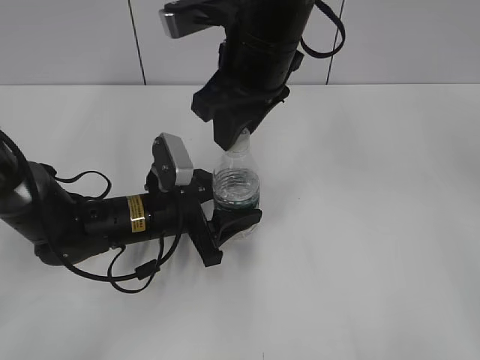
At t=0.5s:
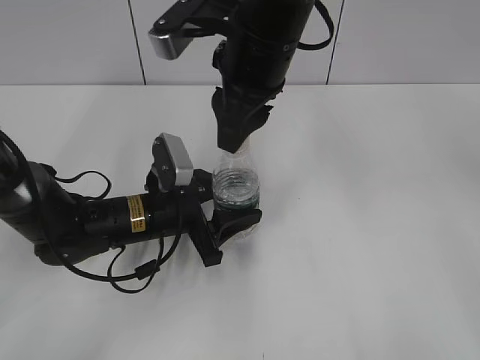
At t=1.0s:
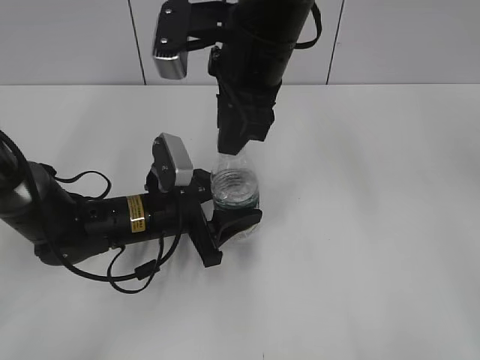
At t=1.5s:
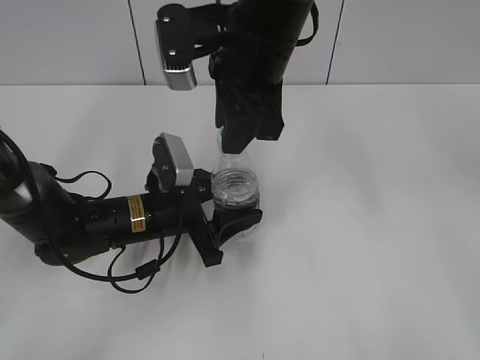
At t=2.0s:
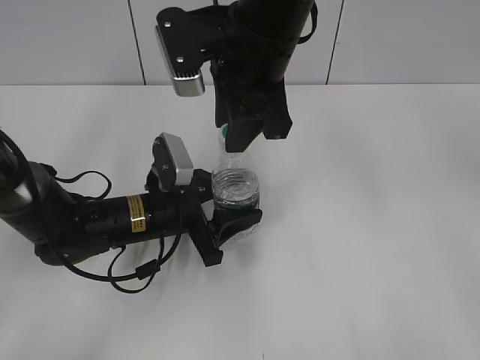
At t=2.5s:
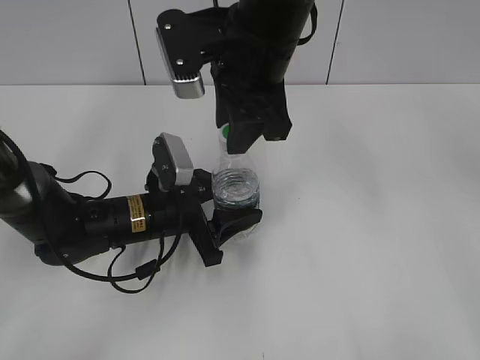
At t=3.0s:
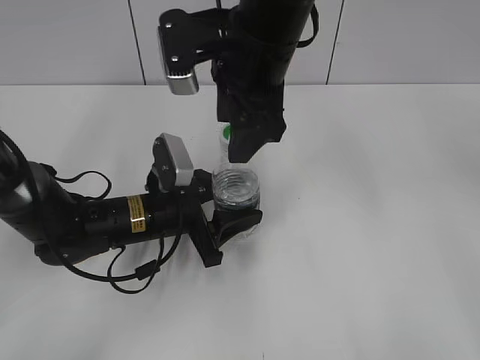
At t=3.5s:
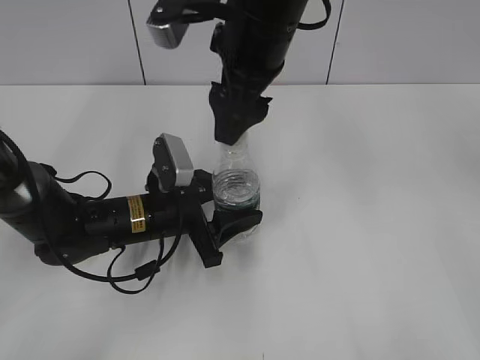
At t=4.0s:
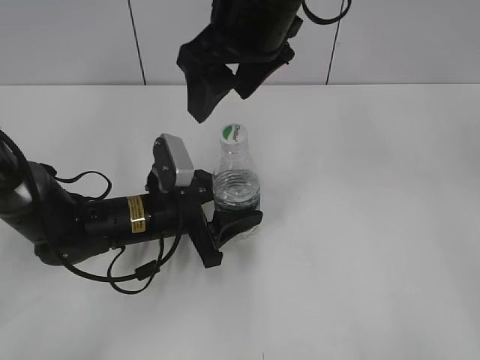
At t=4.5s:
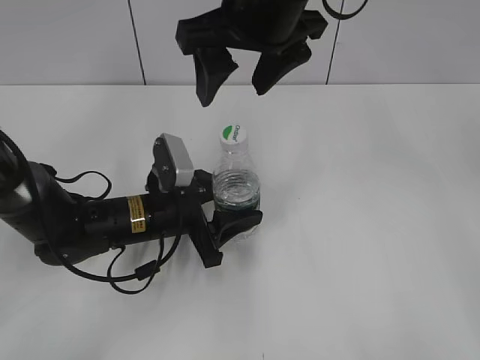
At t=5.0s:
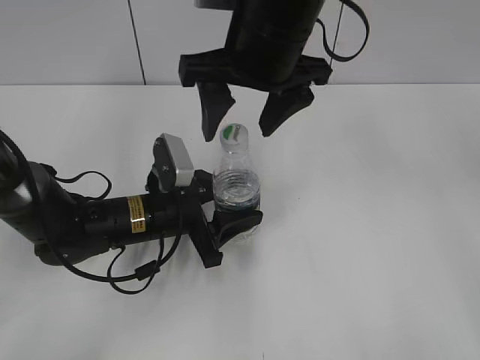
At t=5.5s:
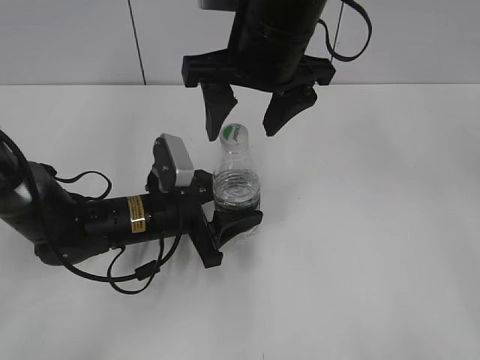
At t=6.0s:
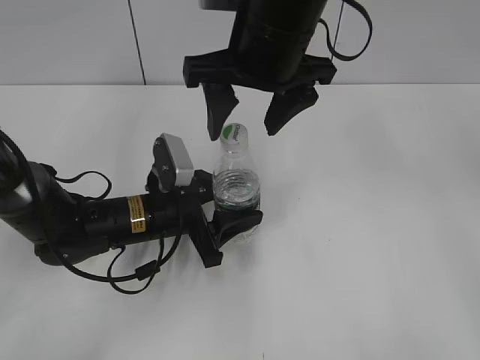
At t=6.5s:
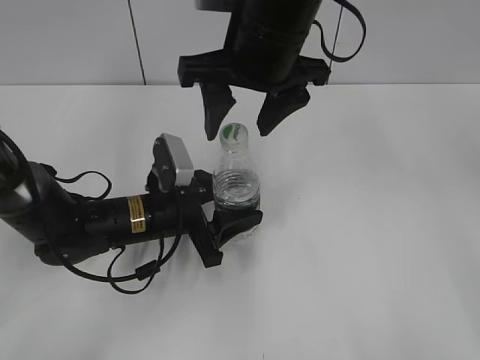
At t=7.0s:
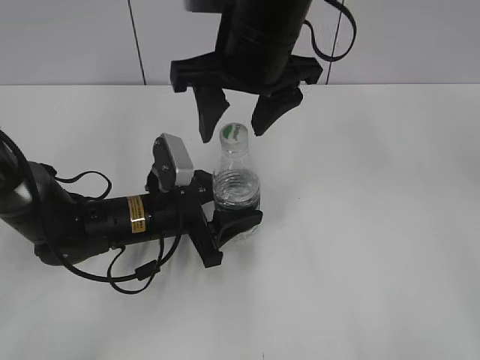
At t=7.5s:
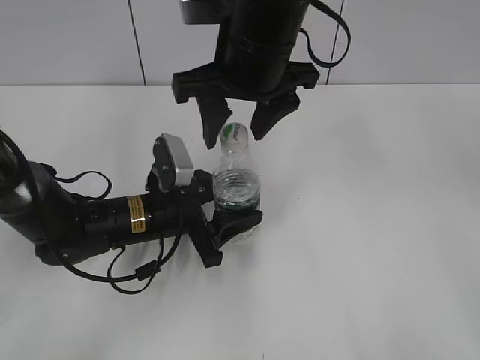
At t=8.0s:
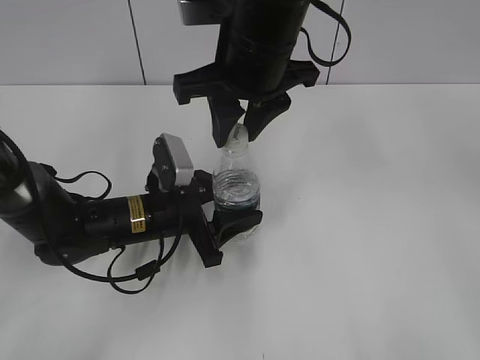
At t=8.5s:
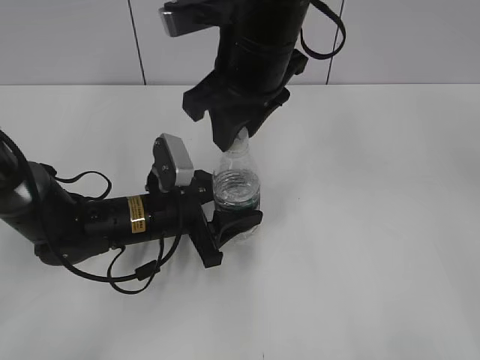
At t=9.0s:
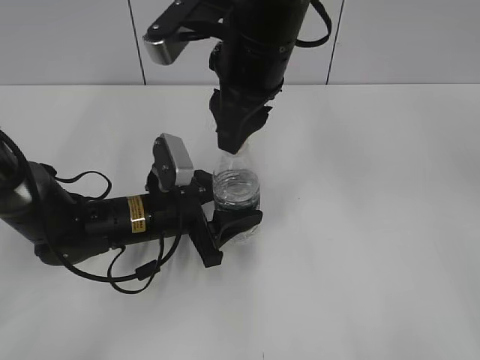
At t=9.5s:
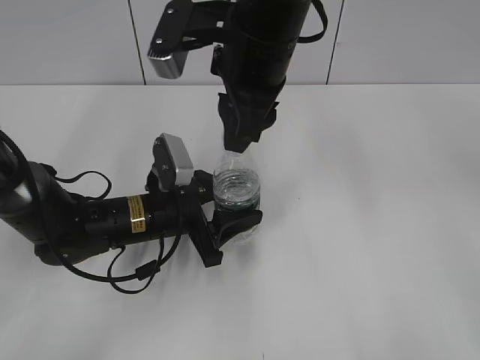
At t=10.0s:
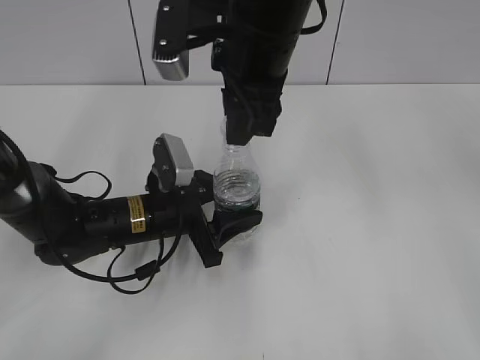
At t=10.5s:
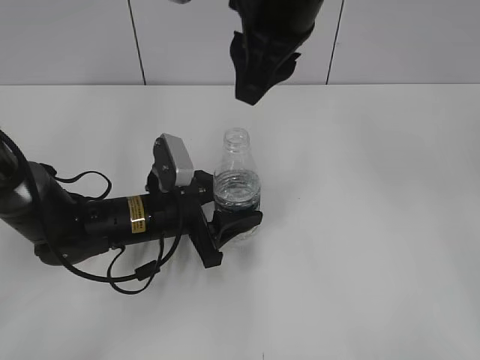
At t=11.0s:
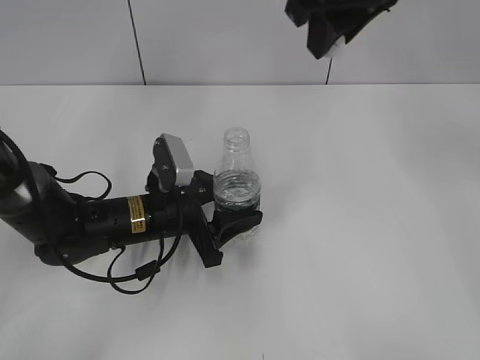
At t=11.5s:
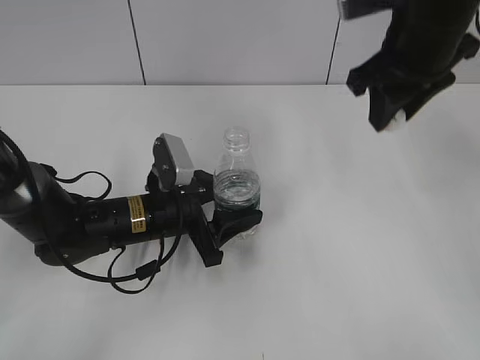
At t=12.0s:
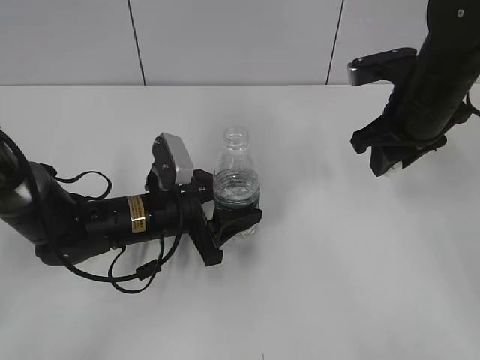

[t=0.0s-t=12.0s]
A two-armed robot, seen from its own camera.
Step, t=0.0s to t=10.0s: Unscrew the bottle cap with the right gripper while holding the bottle with the left gripper.
t=2.0s to t=4.0s: The right gripper opens its fingers.
t=6.0s to t=8.0s: The right gripper closes up.
t=10.0s to t=12.0s: The right gripper moves to the right and downward, roughly 20 cm.

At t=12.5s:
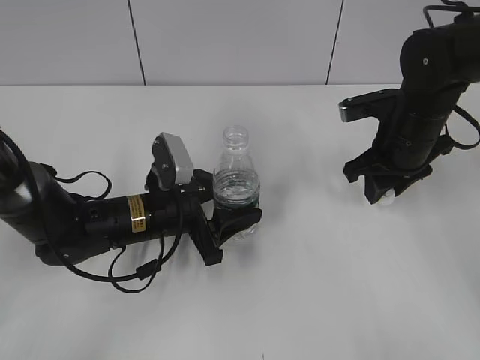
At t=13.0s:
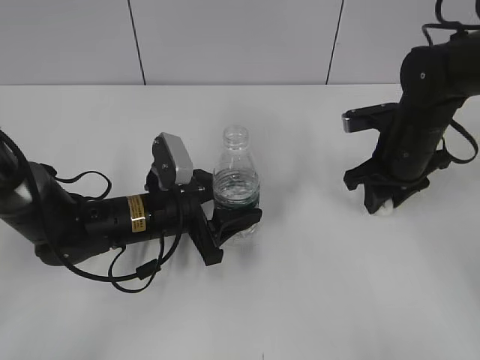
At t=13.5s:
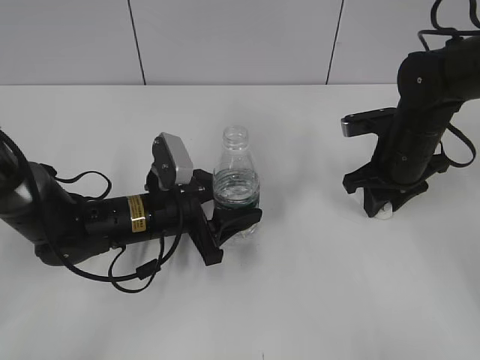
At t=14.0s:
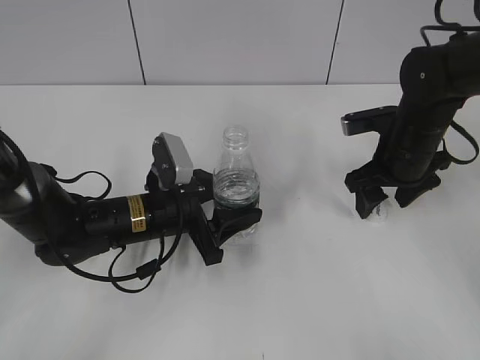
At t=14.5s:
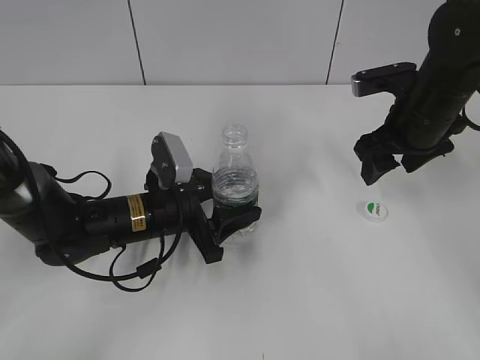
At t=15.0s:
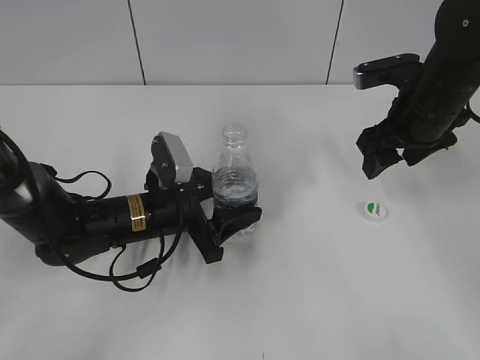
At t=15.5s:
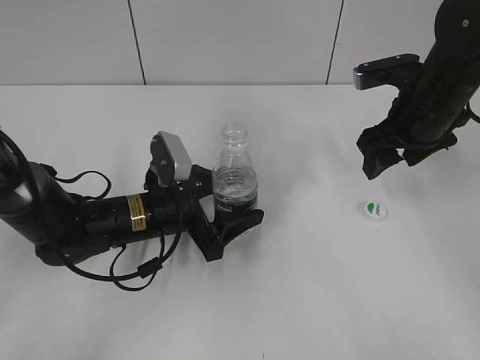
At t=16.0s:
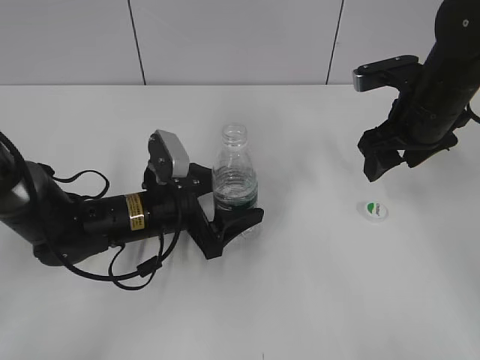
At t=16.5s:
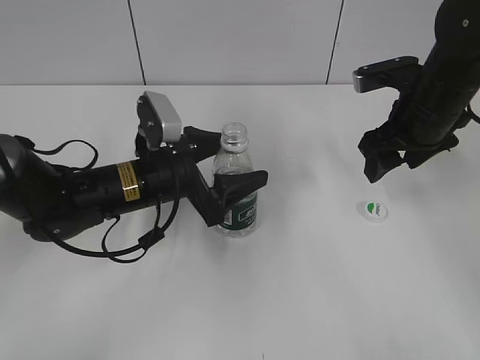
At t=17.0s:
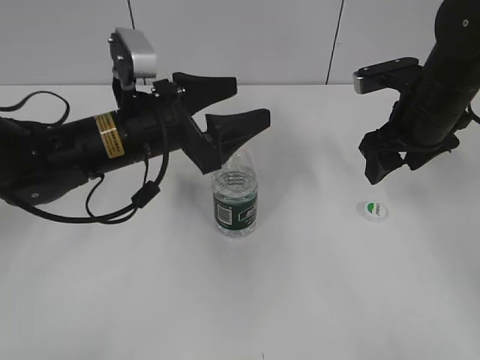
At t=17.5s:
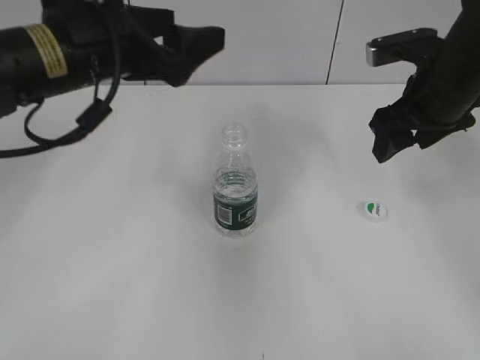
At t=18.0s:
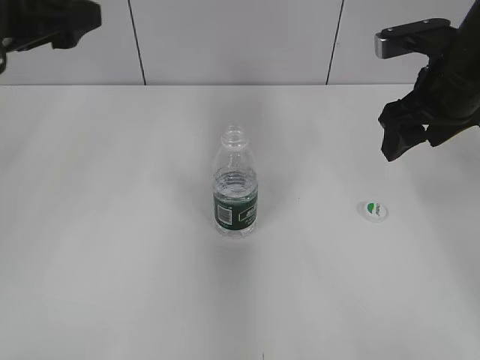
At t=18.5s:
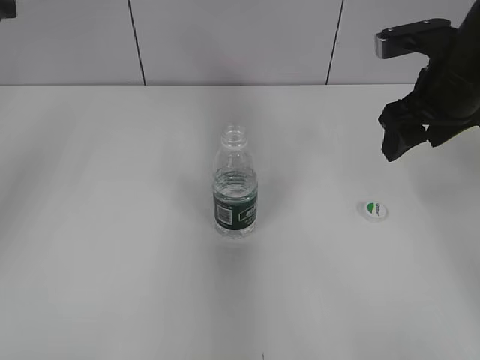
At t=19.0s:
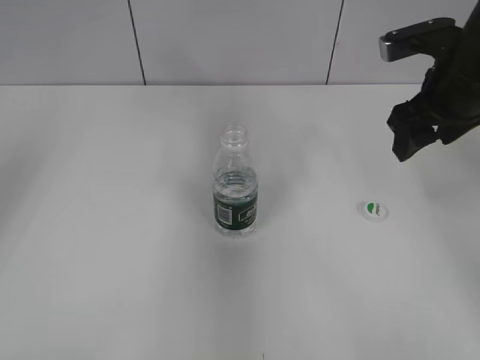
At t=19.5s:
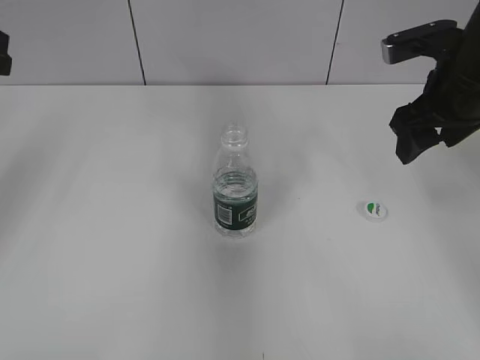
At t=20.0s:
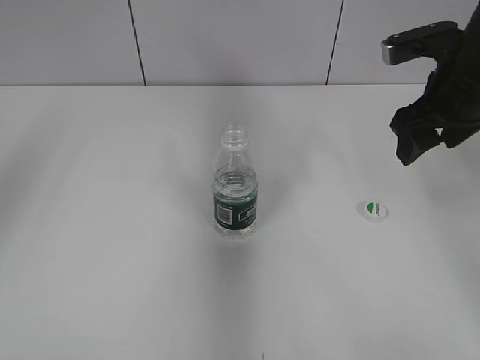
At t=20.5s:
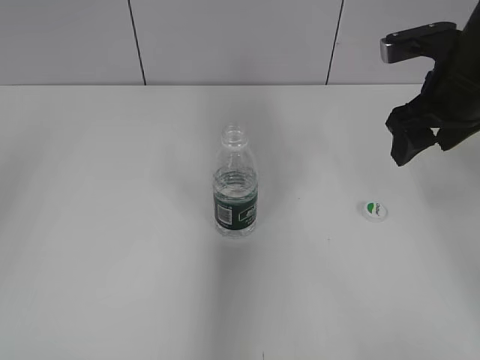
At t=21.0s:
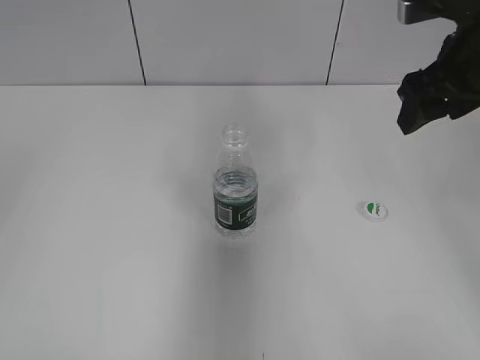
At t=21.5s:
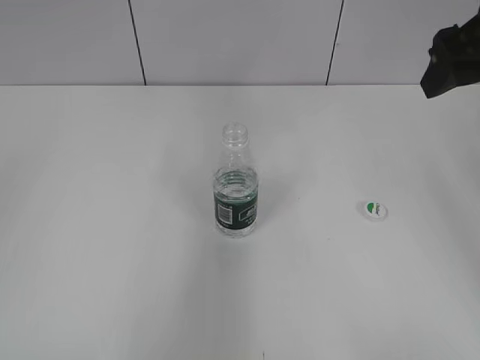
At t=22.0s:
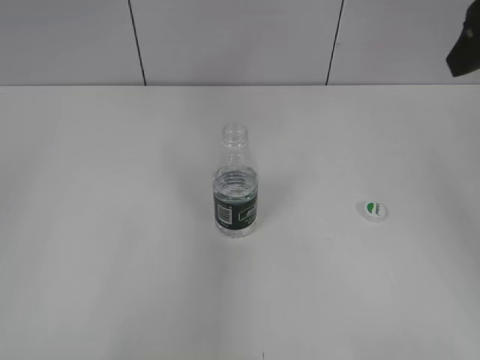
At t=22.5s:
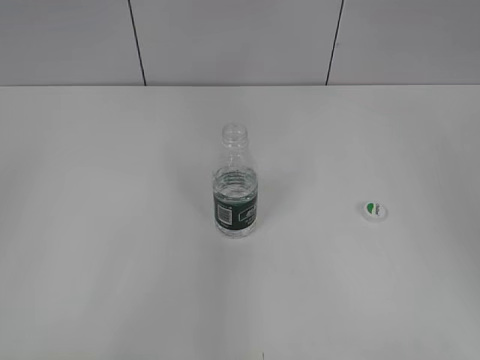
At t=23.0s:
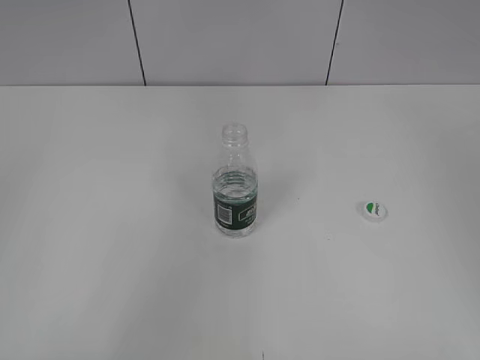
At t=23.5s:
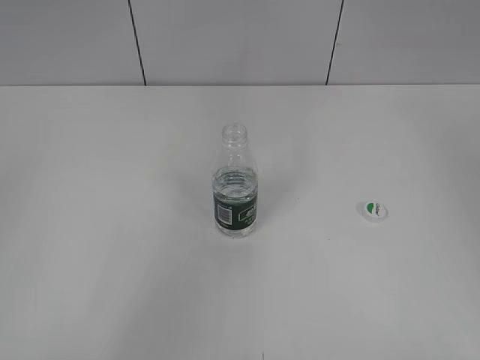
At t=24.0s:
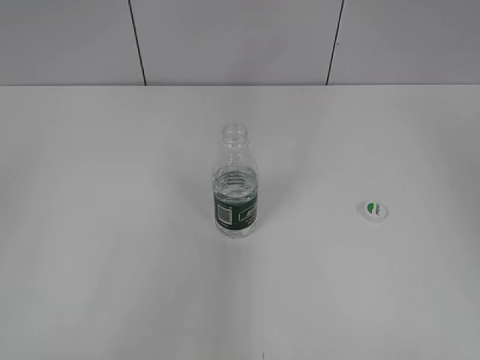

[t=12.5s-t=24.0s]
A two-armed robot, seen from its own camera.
Step, t=14.5s to t=16.5s: Place the bottle on the table with the left gripper.
t=12.5s to t=14.5s: The right gripper opens.
t=14.5s to t=16.5s: The left gripper opens up.
t=16.5s to t=18.5s: The left gripper heads upward and to the left, covering about 30 cm. The right gripper shifts approximately 5 cm upward.
t=20.0s to t=22.0s: The right gripper travels upward and backward by roughly 15 cm.
t=22.0s to t=24.0s: The right gripper moves backward, to the right and upward, about 15 cm.
